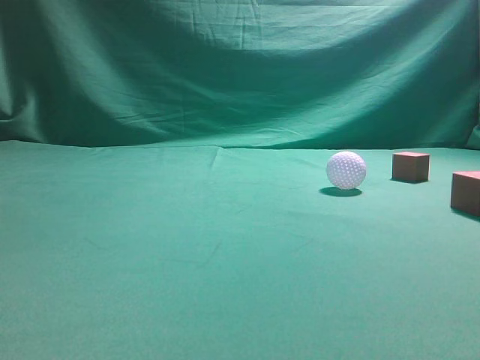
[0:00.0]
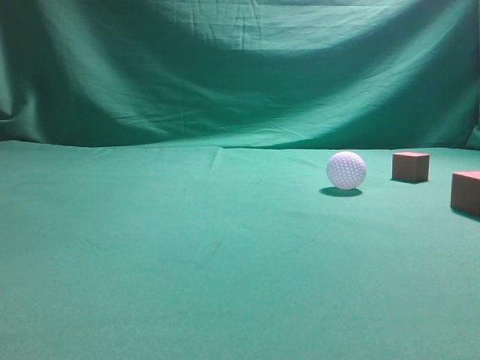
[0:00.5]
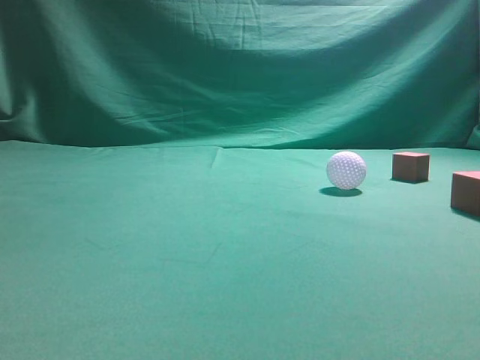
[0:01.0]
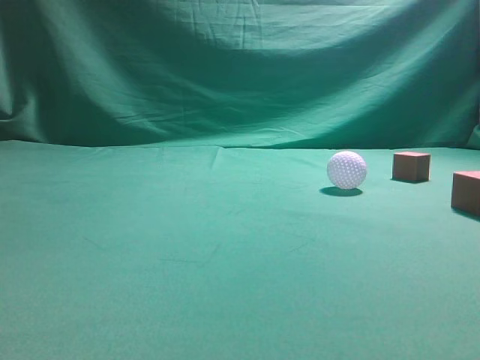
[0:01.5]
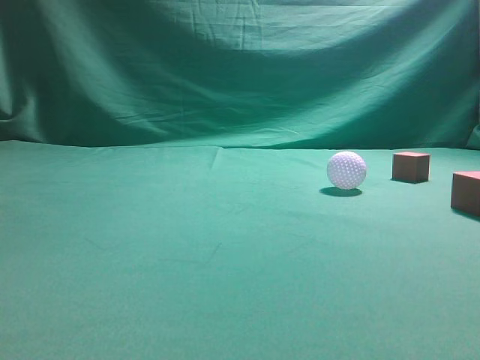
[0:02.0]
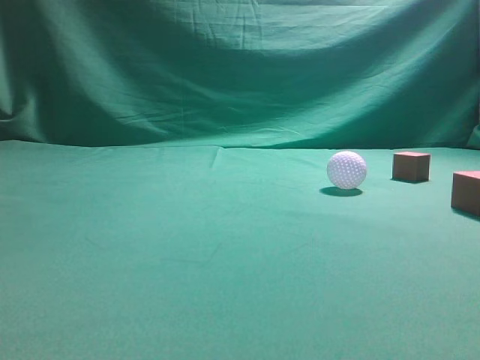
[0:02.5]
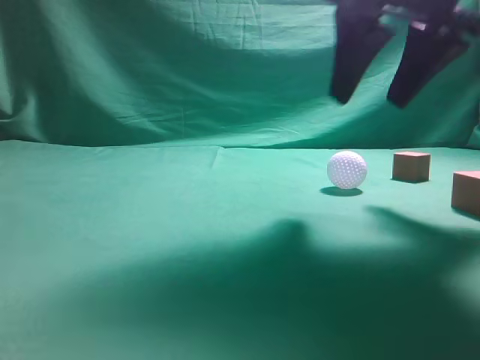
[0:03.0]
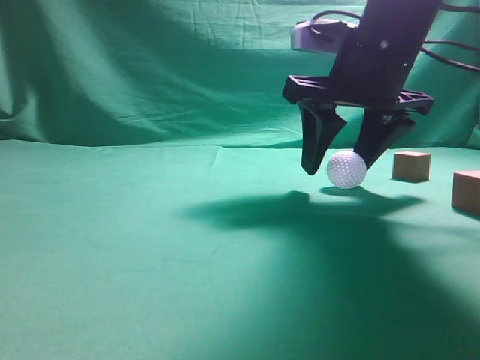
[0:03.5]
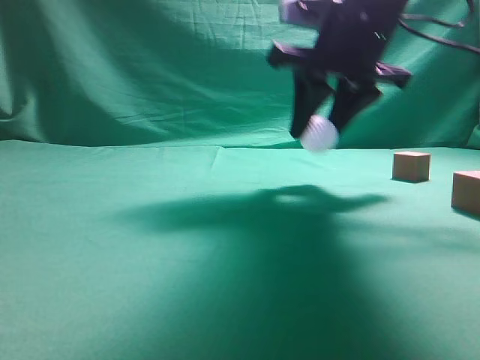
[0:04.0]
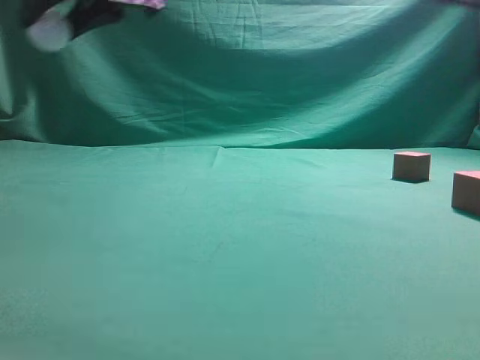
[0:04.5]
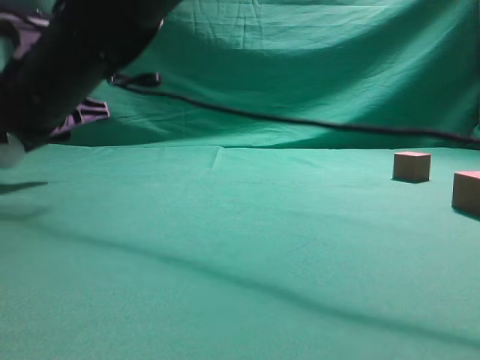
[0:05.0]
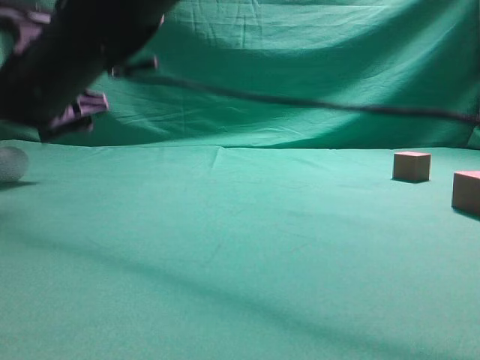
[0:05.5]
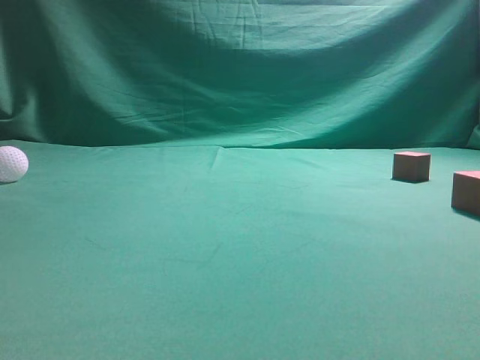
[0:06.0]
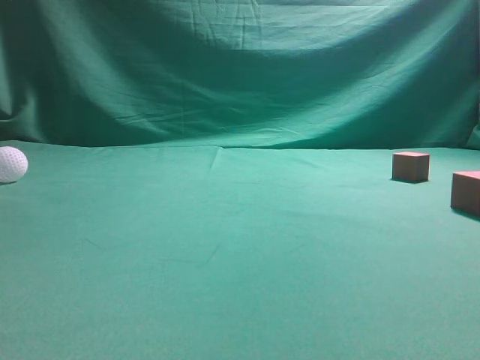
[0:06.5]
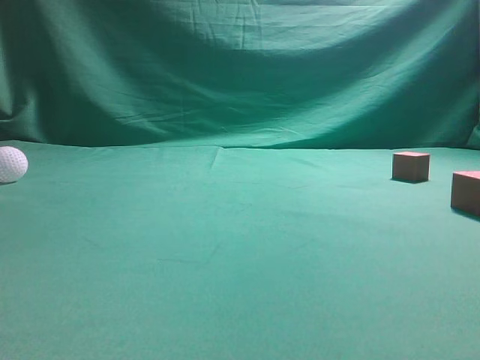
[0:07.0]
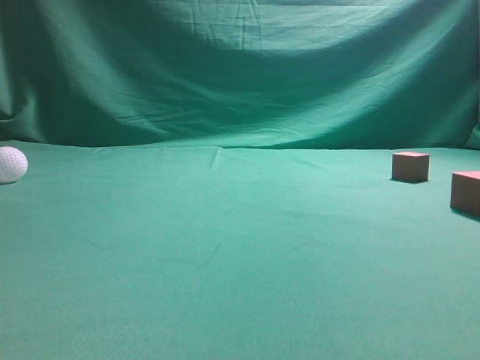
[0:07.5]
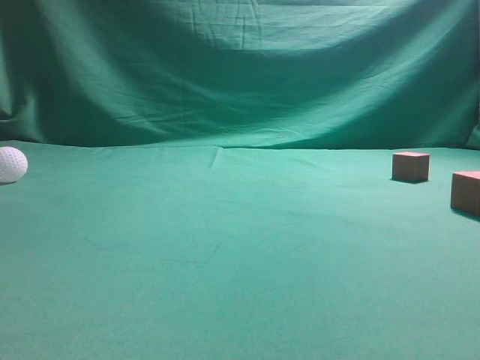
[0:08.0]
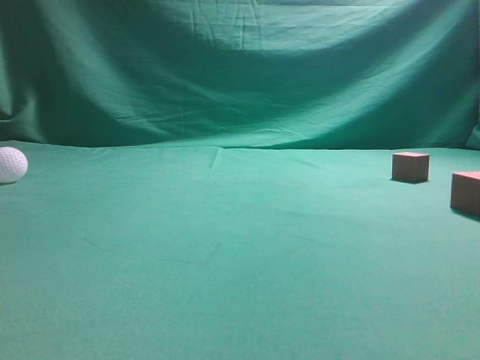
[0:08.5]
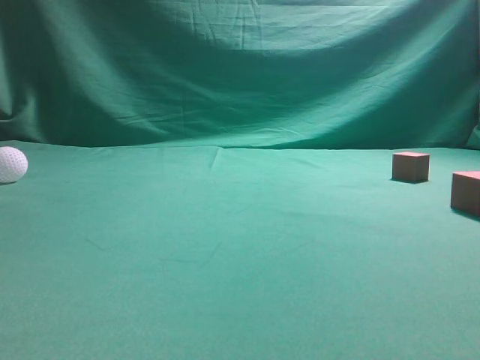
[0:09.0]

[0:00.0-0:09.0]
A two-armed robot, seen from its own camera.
Step, 0:00.0 to 0:03.5: Grasp the spherical object on the right side.
0:02.0 to 0:04.5: The right gripper moves to the left and forward, roughly 50 cm, and opens up.
